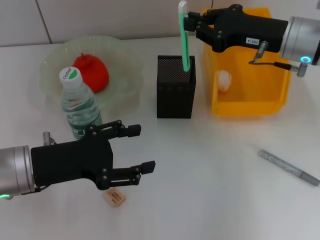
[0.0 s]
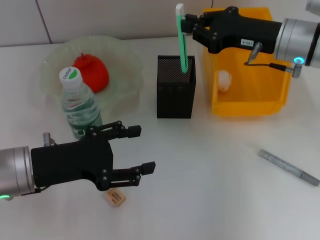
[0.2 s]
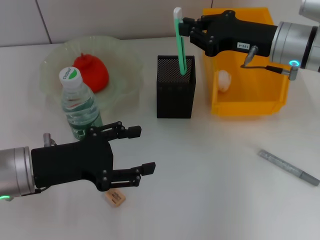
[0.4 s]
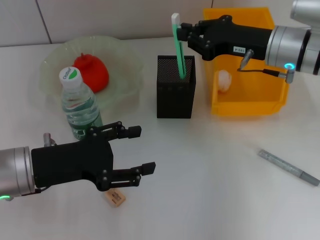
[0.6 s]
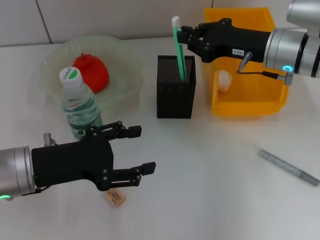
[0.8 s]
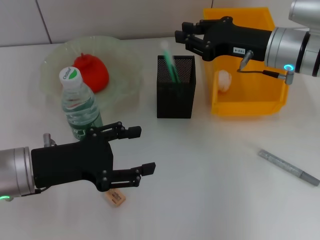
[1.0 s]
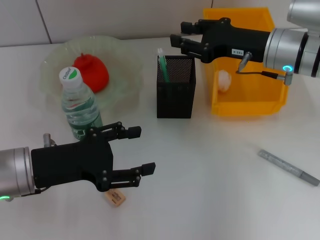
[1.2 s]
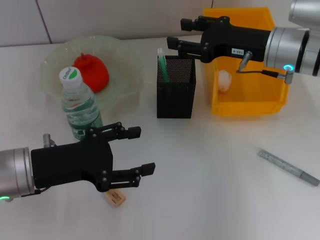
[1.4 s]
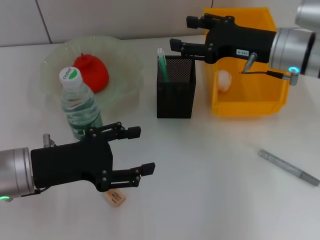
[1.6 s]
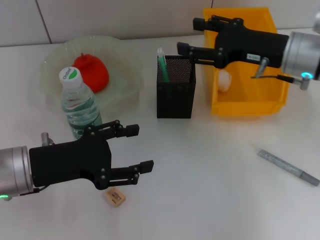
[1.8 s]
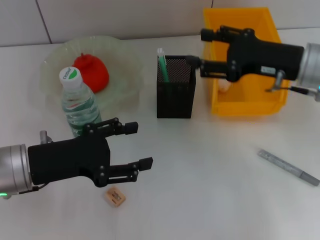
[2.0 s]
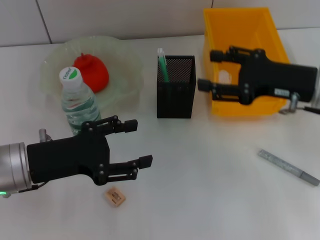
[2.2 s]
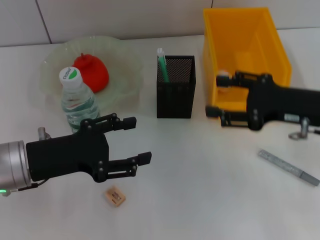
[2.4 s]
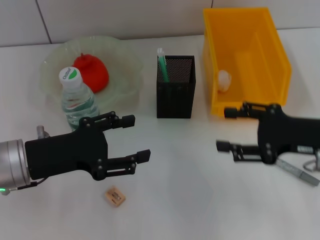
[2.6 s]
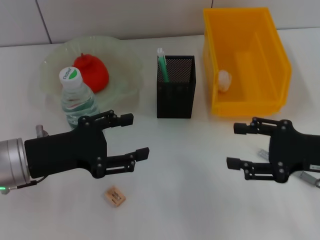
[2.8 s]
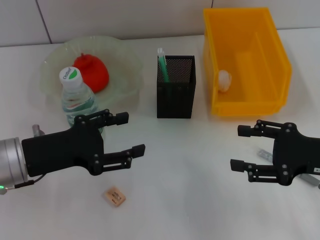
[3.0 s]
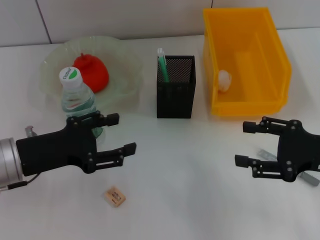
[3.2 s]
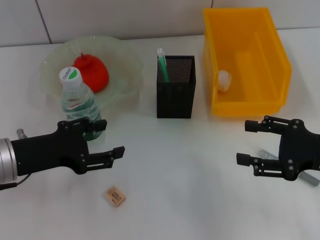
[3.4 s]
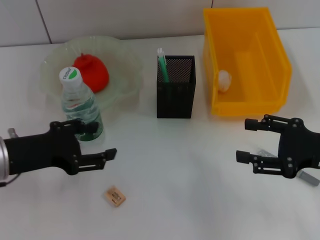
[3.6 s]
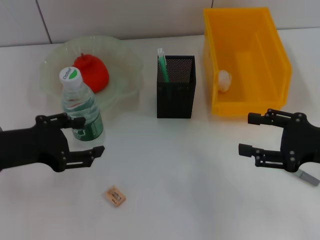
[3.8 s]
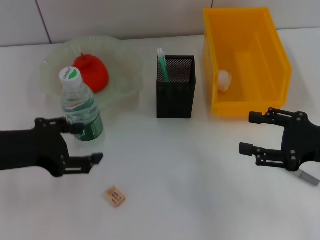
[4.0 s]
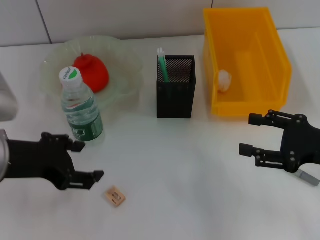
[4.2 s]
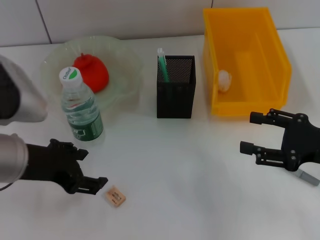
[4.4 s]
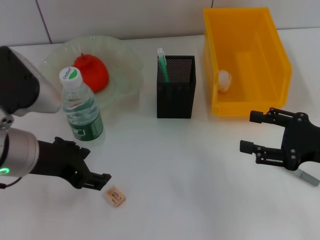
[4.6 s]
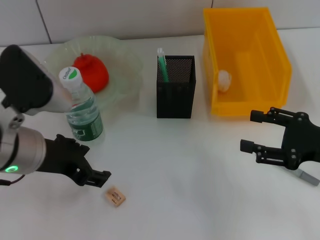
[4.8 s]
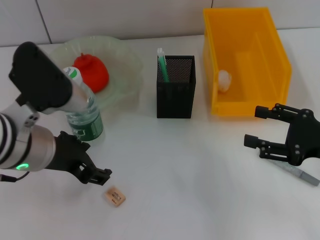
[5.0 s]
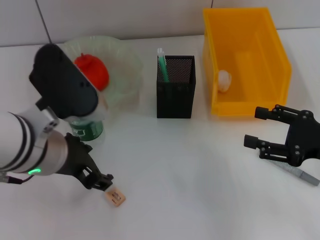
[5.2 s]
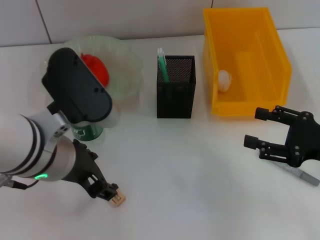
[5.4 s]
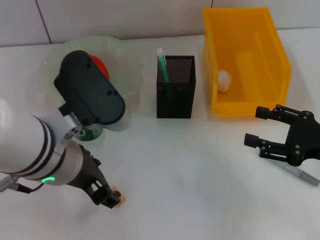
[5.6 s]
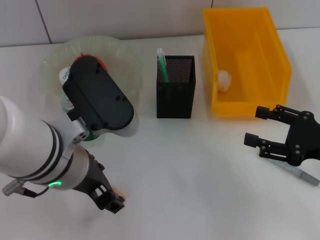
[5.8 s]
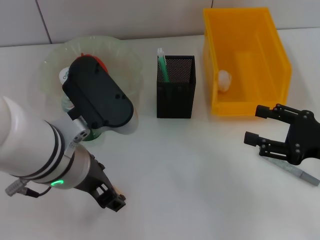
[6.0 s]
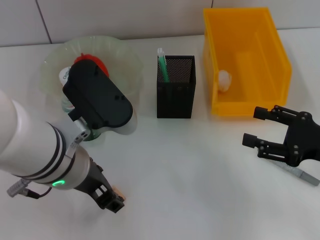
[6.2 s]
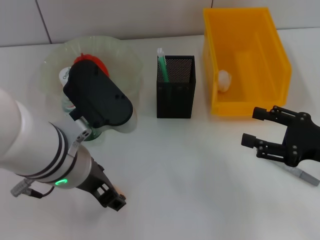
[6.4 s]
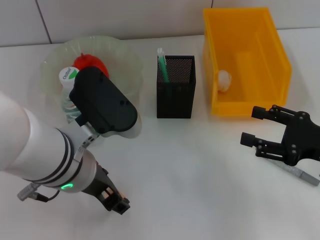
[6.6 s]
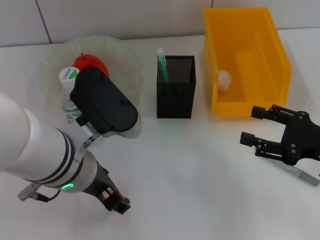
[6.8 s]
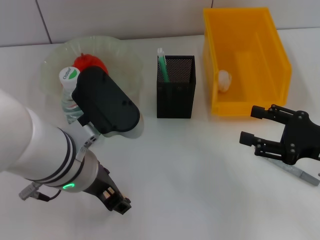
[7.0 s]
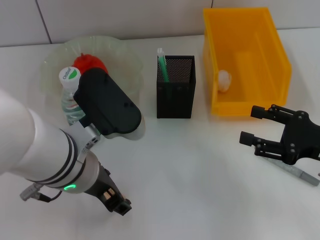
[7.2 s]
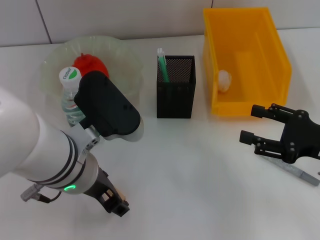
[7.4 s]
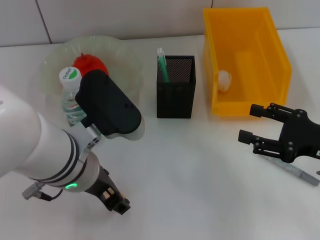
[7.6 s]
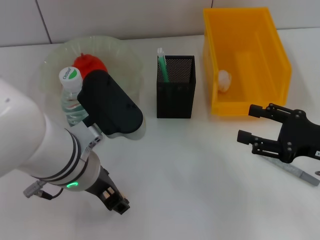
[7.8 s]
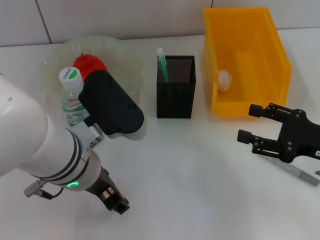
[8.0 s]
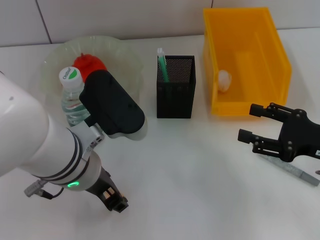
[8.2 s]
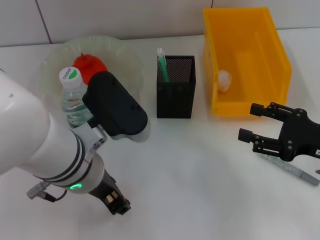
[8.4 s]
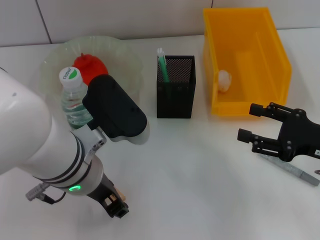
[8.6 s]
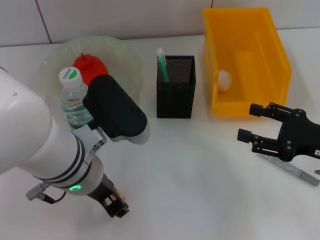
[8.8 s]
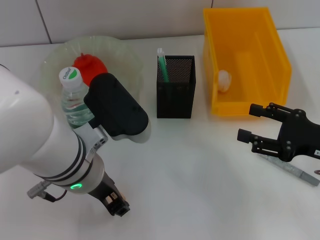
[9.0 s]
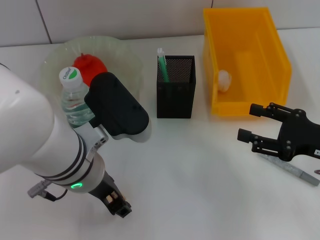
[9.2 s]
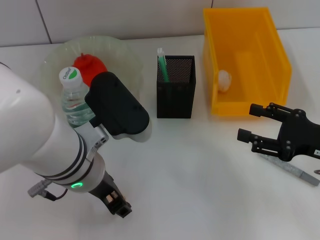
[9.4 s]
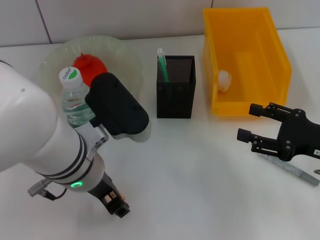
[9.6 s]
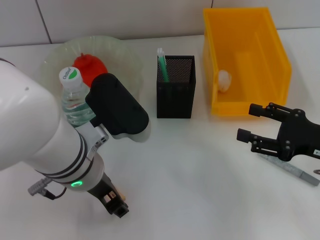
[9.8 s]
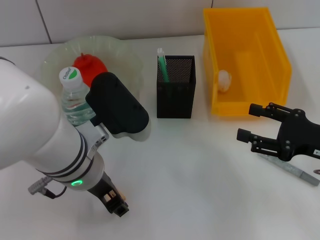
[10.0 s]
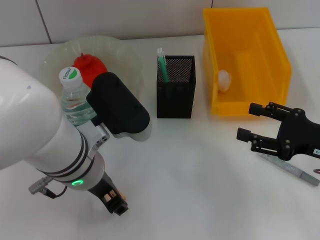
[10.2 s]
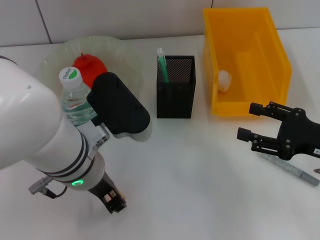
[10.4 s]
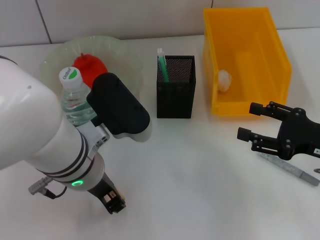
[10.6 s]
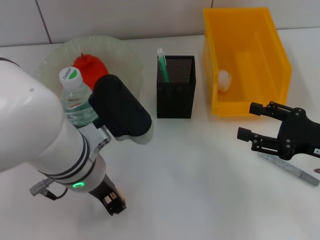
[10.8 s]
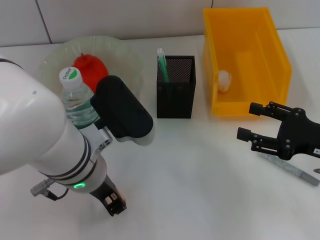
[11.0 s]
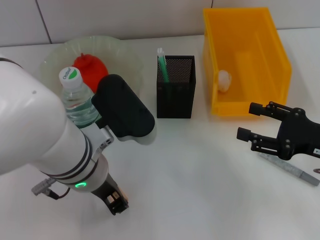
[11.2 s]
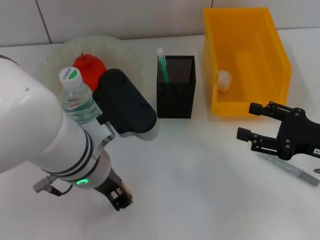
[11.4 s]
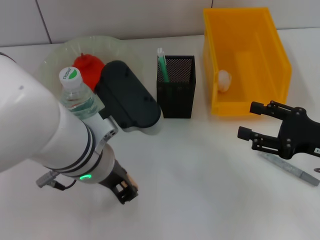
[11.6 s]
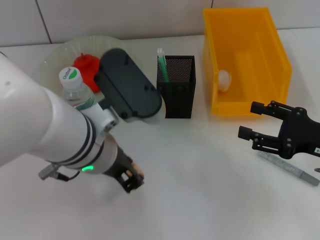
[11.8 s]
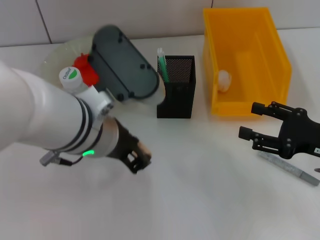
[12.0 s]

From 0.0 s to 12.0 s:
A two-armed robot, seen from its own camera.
Step, from 1.8 s to 11.2 s: Grab the eraser with the left hand.
From 0.0 s to 1.6 s: The right gripper opens.
From 1.6 s to 3.0 s: The right gripper is displaced backward and to the right by some 15 cm.
From 3.0 s to 4.4 s: The left gripper is displaced upward by about 5 cm.
From 4.4 s to 6.0 s: The left gripper shifts about 10 cm to the right.
From 6.0 s to 7.6 s: The grippers make only small movements.
From 7.6 s to 10.4 s: The two grippers keep their place.
From 10.4 s to 12.0 s: The left gripper closes its fingers.

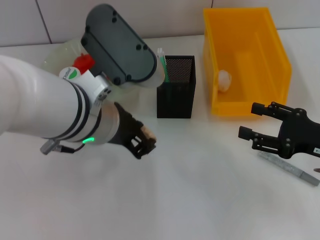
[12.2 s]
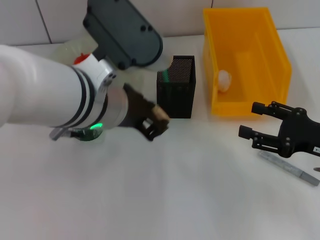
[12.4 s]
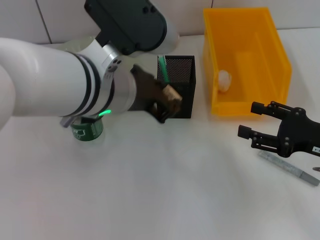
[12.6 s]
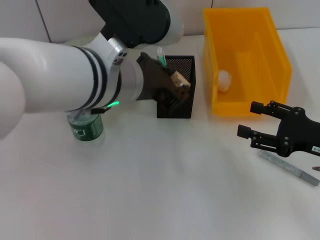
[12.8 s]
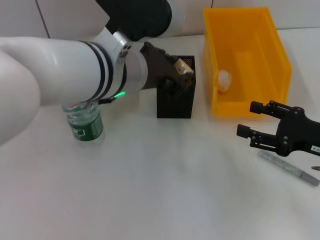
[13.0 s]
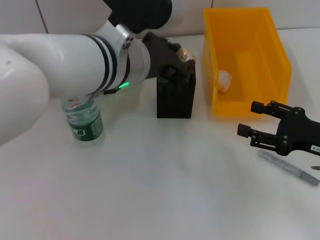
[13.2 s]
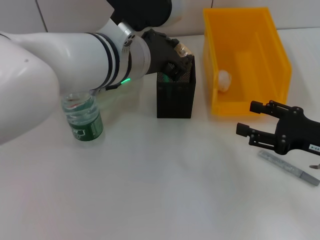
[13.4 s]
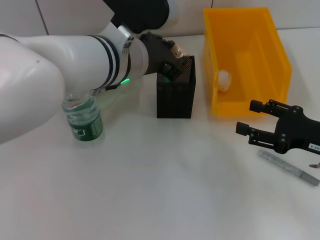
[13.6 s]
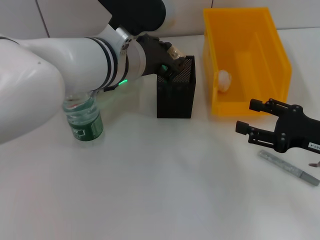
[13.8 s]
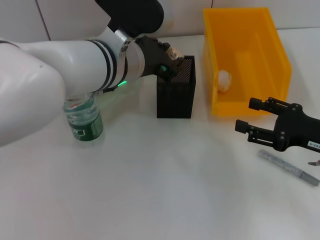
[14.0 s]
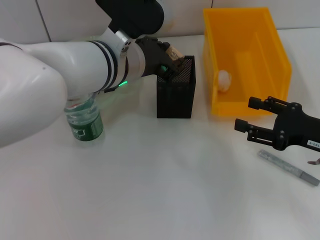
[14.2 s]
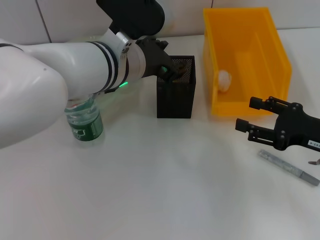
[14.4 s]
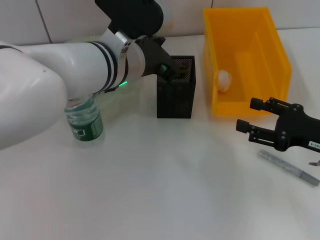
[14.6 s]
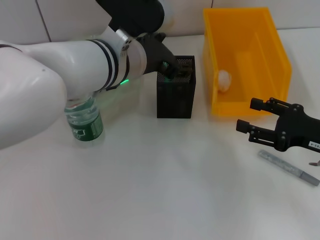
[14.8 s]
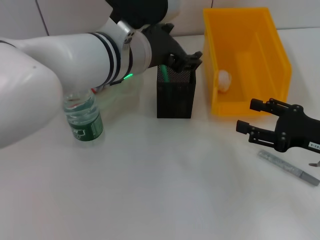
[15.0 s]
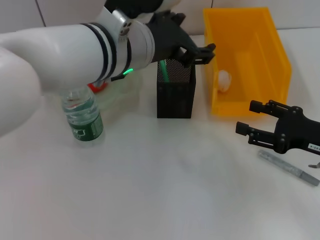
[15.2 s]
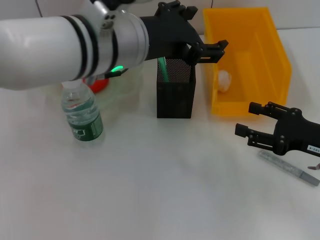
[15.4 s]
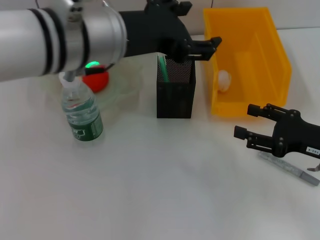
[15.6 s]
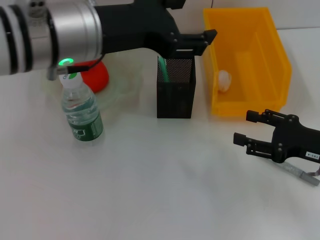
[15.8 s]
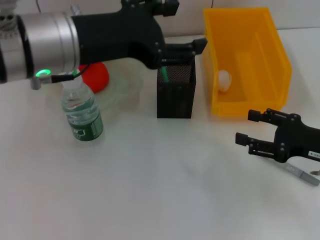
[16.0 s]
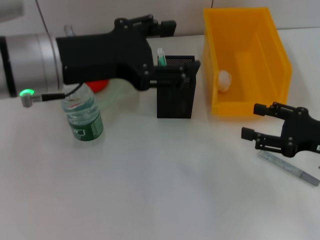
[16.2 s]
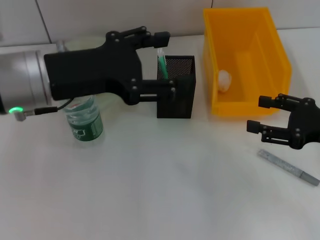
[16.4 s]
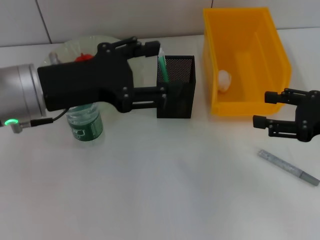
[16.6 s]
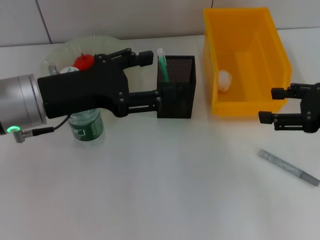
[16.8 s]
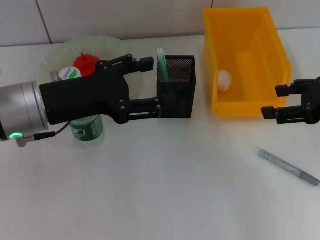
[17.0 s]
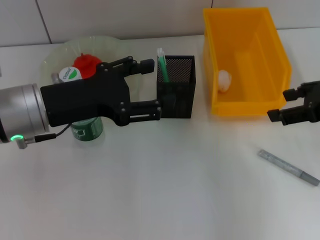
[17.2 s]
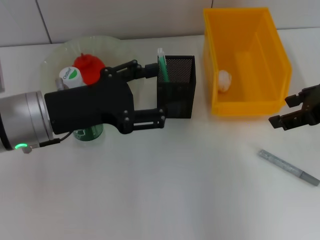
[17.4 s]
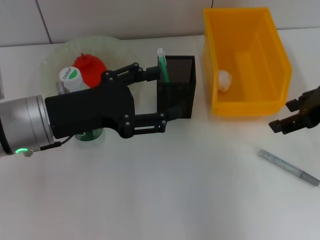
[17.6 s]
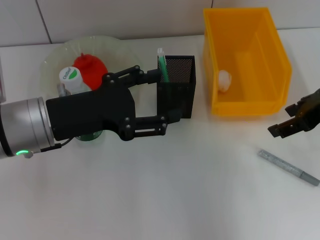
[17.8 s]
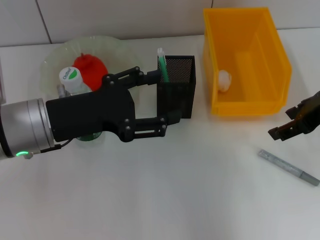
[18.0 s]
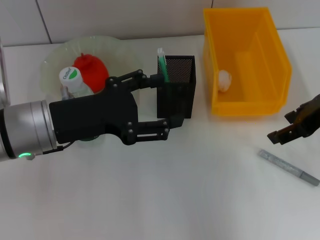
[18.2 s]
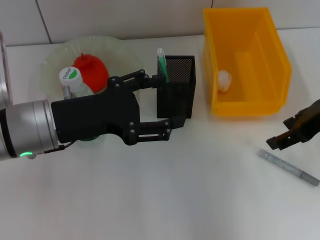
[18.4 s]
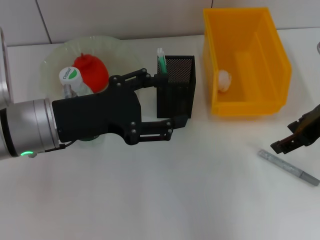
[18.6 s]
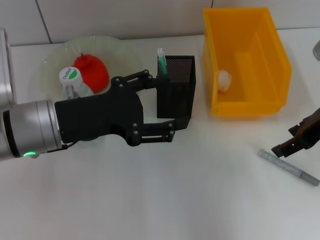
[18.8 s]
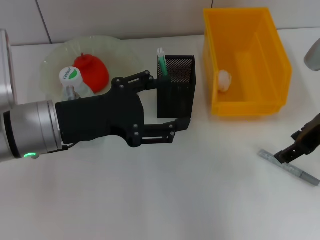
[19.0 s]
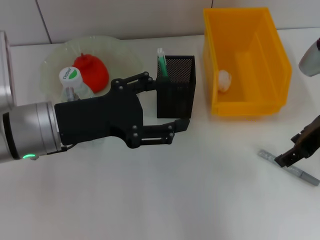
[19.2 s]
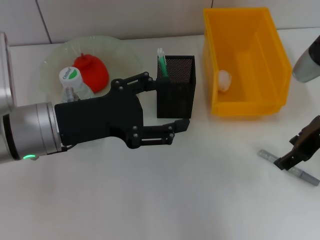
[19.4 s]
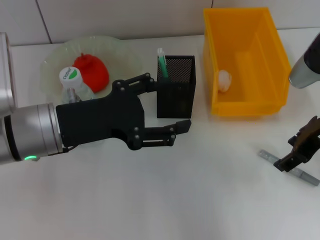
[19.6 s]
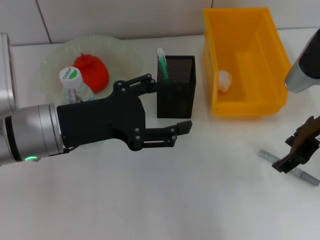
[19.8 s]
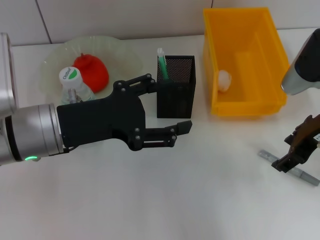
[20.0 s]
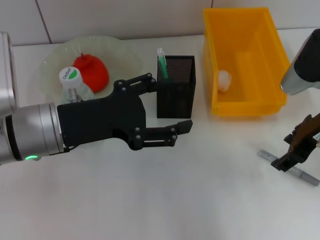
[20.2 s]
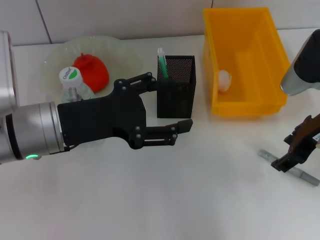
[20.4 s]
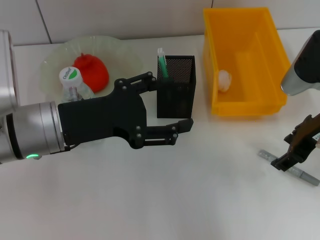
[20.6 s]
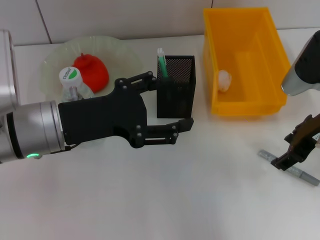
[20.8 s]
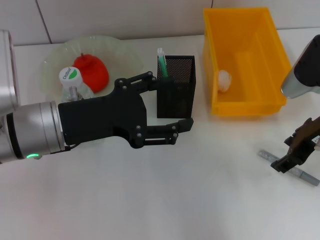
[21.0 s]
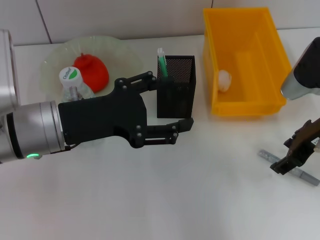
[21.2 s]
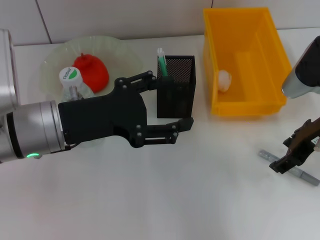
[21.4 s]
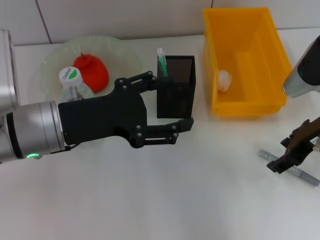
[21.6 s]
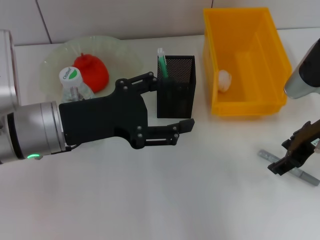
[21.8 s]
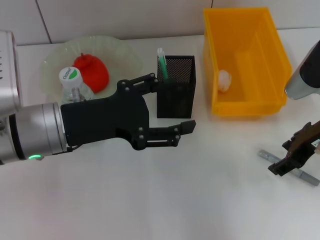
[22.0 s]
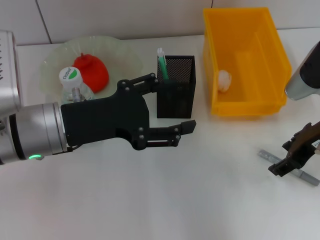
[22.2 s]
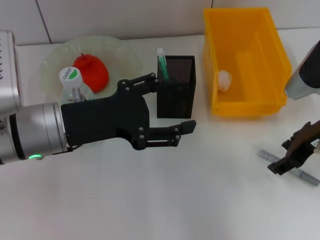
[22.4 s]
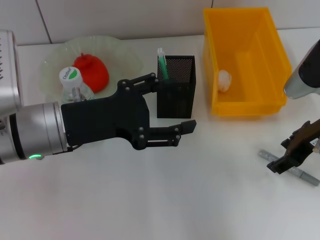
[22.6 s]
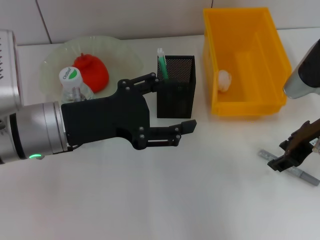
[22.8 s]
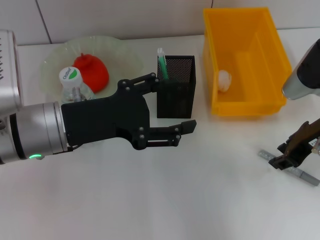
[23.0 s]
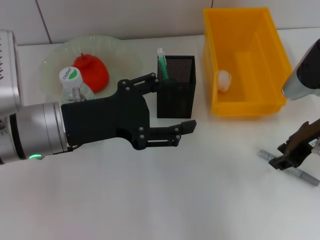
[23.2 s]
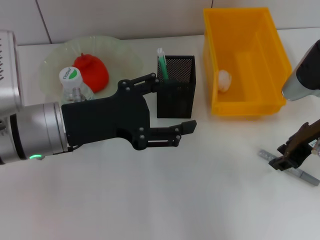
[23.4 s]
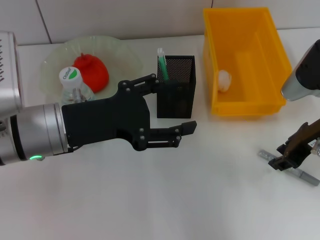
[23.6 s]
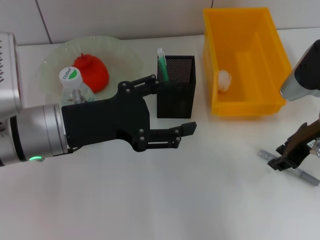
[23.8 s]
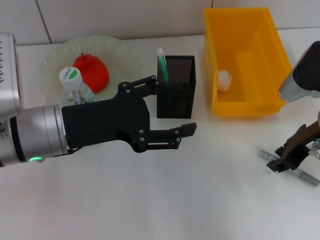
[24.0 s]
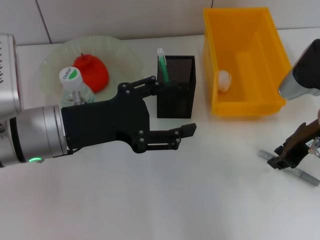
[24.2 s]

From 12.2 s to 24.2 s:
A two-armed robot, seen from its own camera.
Step, from 12.2 s to 14.2 s: Place the eraser into the pen holder with the left hand.
From 12.2 s to 13.8 s: The left gripper heads forward, covering some 5 cm.
From 13.8 s to 15.2 s: The left gripper opens its fingers.
From 15.2 s to 16.6 s: The left gripper shifts about 15 cm to the left. The right gripper travels upward by approximately 5 cm.
From 16.6 s to 18.2 s: The right gripper shifts approximately 10 cm upward and forward.
From 18.2 s to 21.2 s: The grippers stay close to where they were, moving slightly.
From 21.2 s to 22.6 s: Both grippers stay about where they are.
From 22.6 s to 24.2 s: The right gripper closes.
